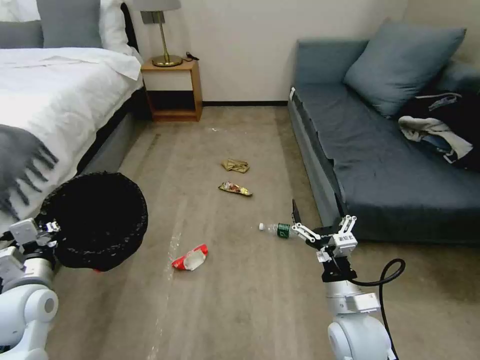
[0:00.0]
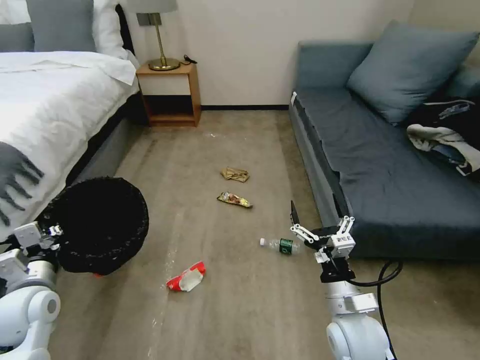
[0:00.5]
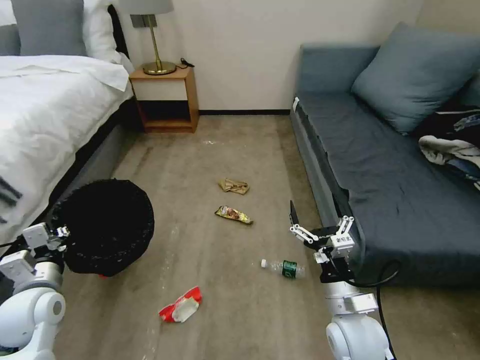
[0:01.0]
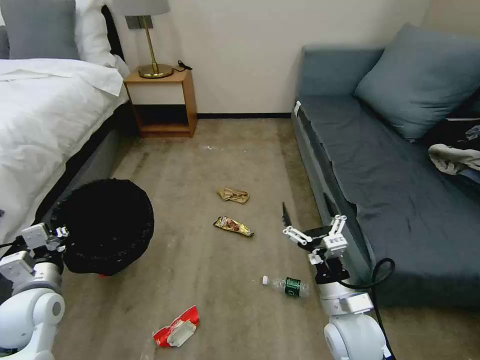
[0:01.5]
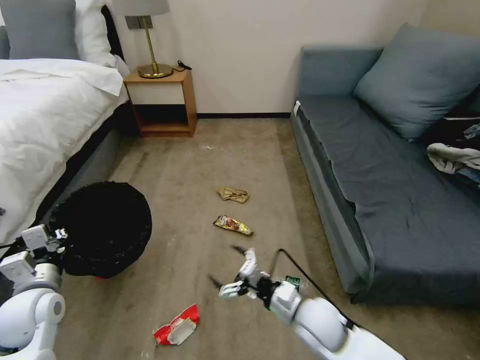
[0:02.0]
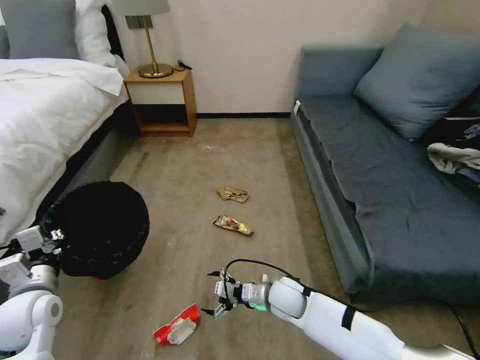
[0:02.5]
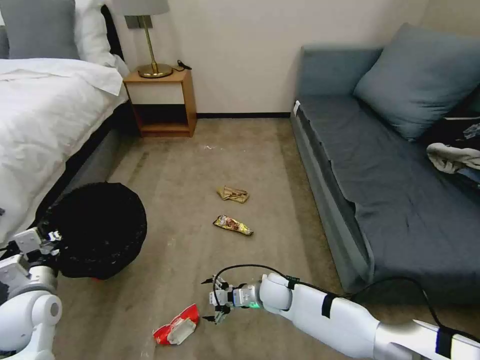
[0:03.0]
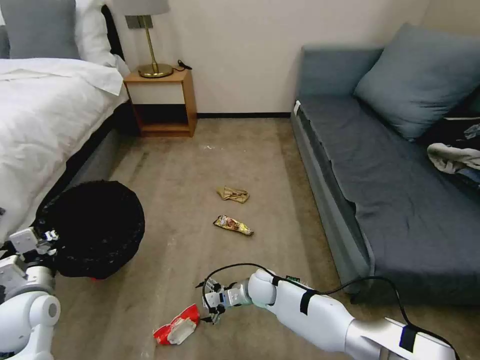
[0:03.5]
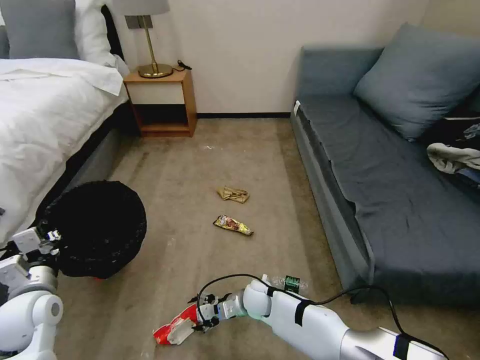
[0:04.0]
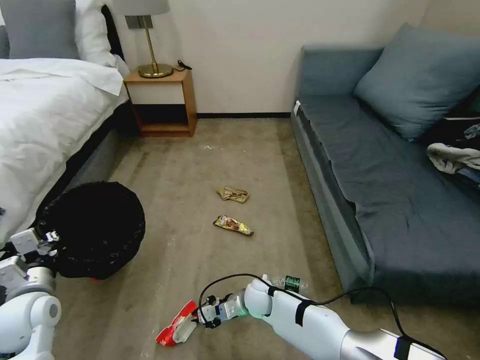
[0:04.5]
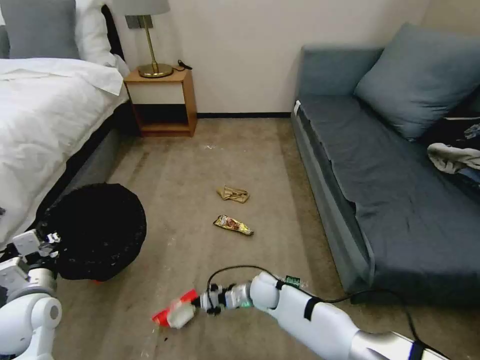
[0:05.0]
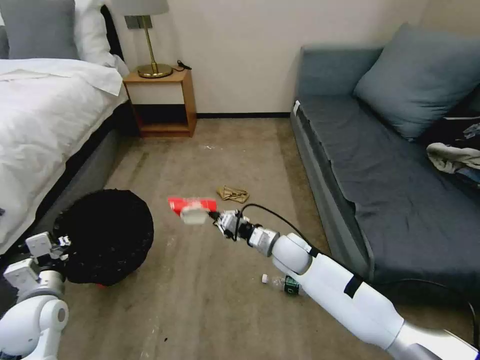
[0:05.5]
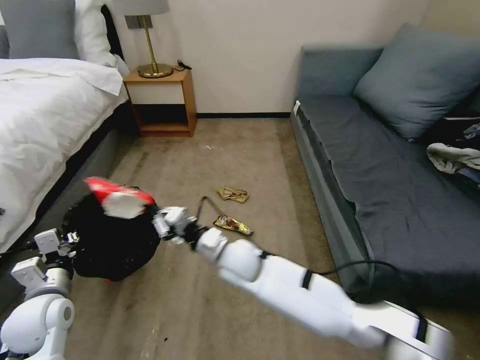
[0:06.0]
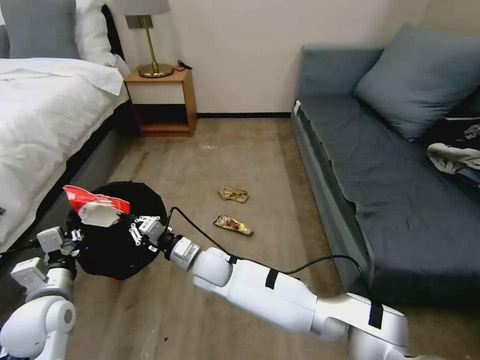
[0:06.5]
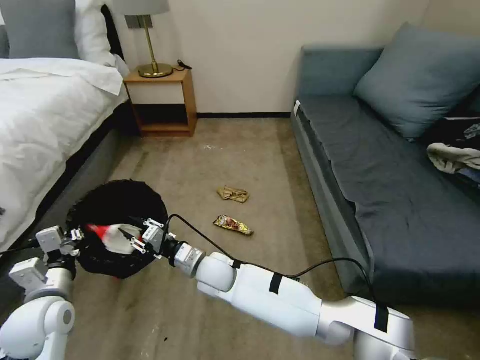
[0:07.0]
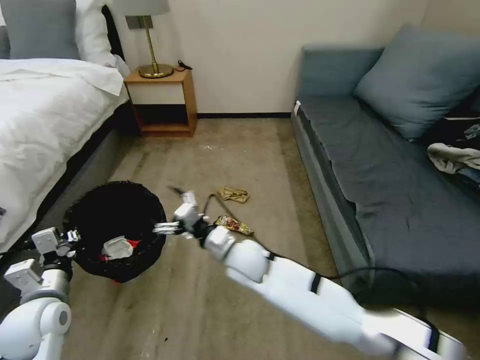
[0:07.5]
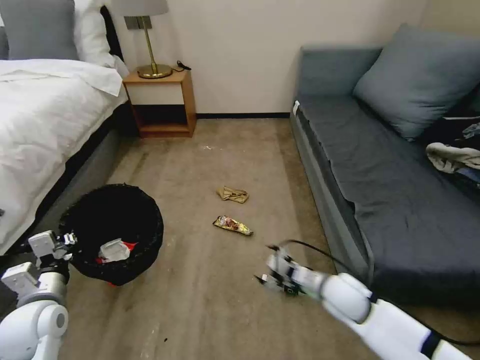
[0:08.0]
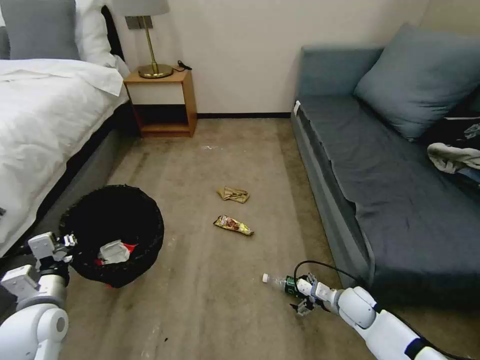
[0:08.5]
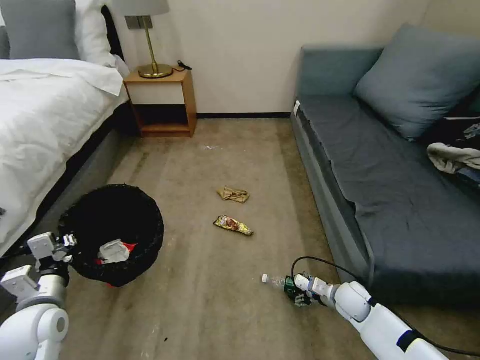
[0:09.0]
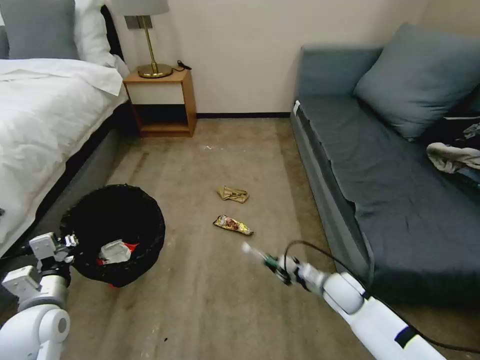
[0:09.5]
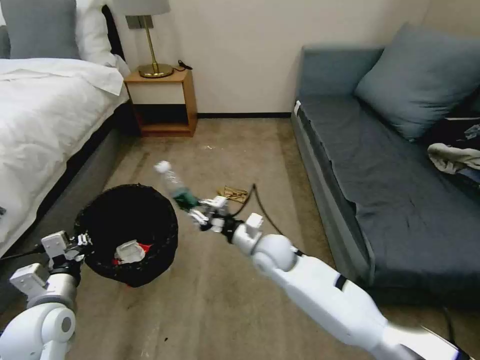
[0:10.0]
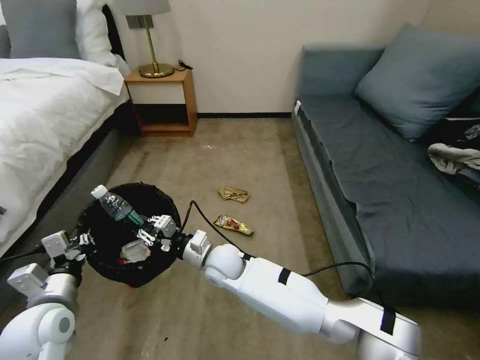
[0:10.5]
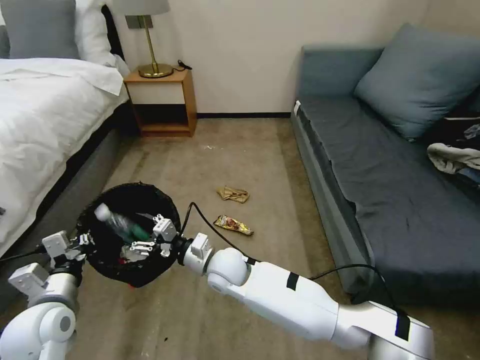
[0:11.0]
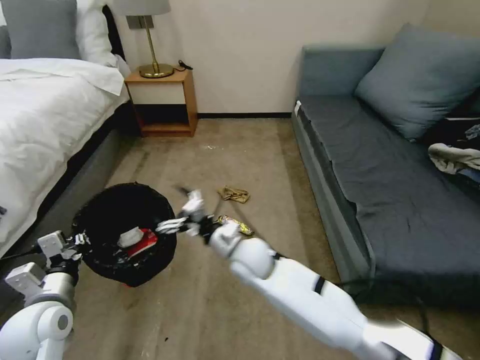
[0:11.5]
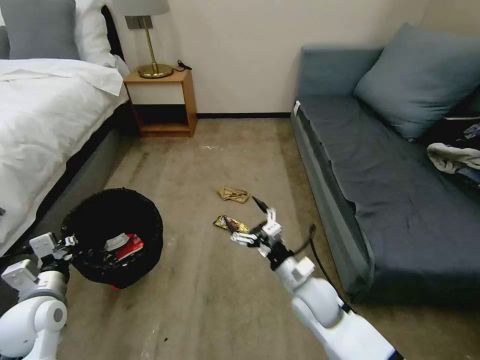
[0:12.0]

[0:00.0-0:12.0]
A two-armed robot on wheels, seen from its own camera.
Task of the whole recording: Pick up the trash bin, then pick up the garbage on the floor and place it into the trash bin.
0:00.0 to 0:02.0: The right gripper ends up about 5 cm from where it was.
0:02.0 to 0:04.0: The right gripper moves downward, to the left and forward, roughly 20 cm.
0:04.0 to 0:06.0: The right gripper heads upward, covering roughly 20 cm, and closes its fingers.
0:06.0 to 0:08.0: The right gripper moves to the right, approximately 25 cm, and opens up.
0:08.0 to 0:10.0: The right gripper moves to the left and forward, roughly 20 cm, and closes up.
0:10.0 to 0:12.0: The right gripper moves backward and to the right, about 15 cm, and opens up.

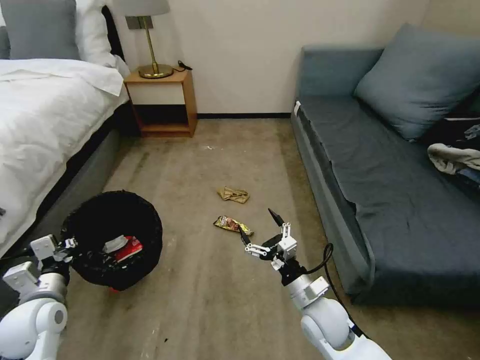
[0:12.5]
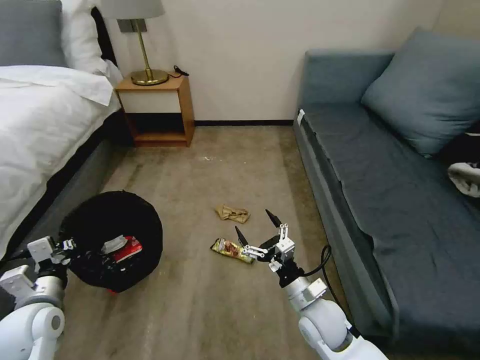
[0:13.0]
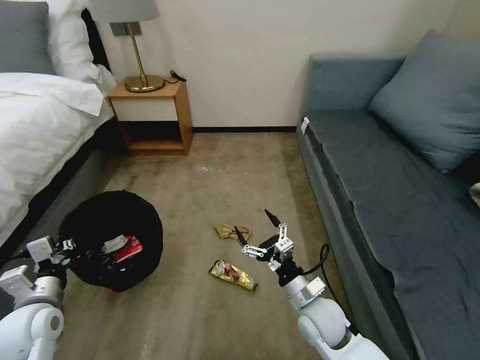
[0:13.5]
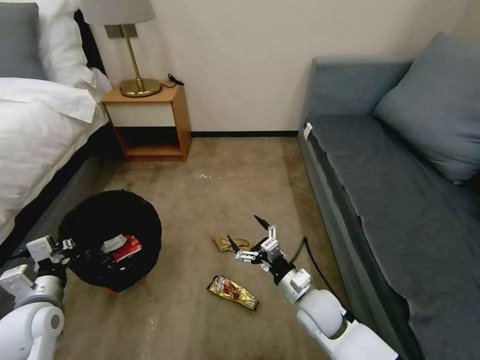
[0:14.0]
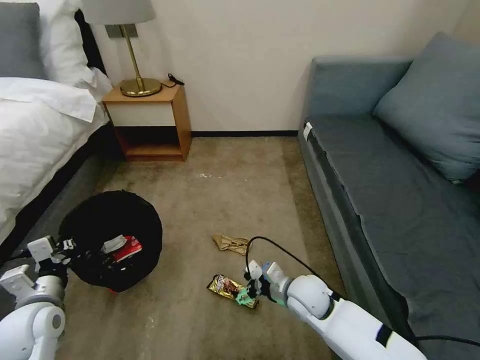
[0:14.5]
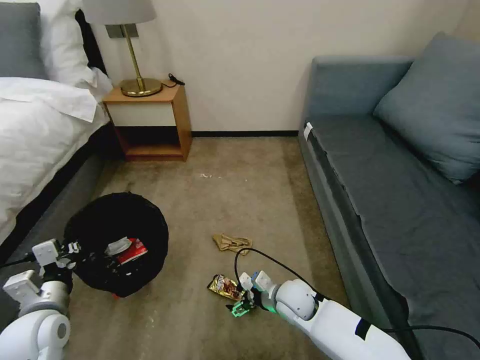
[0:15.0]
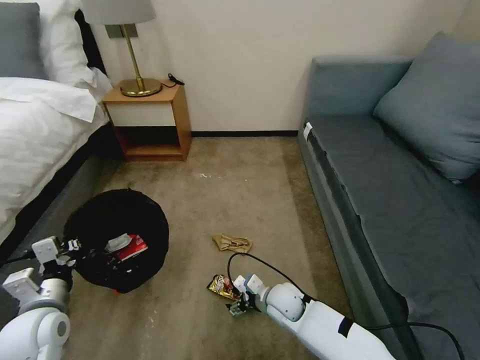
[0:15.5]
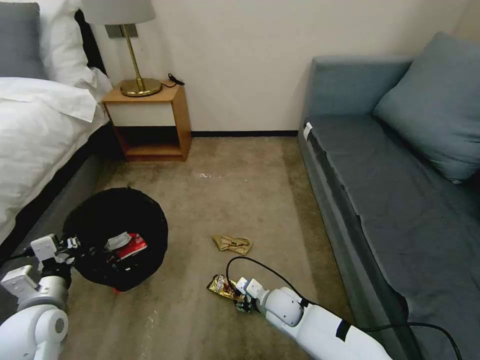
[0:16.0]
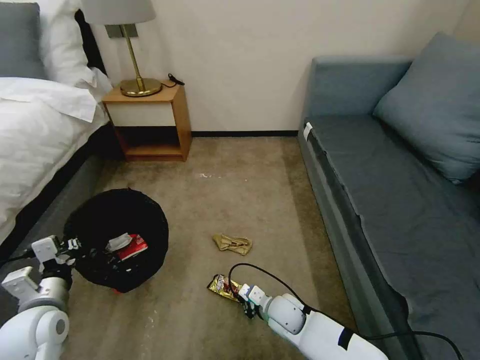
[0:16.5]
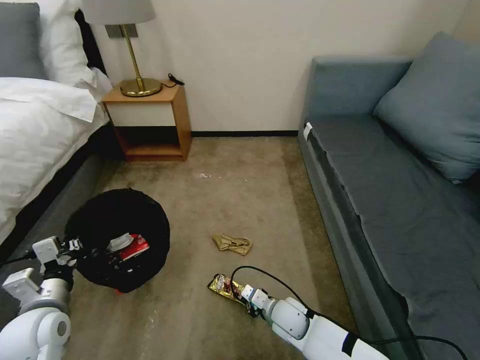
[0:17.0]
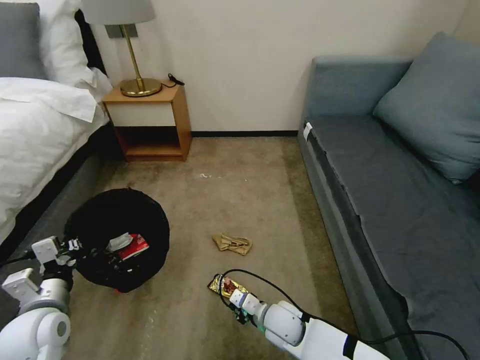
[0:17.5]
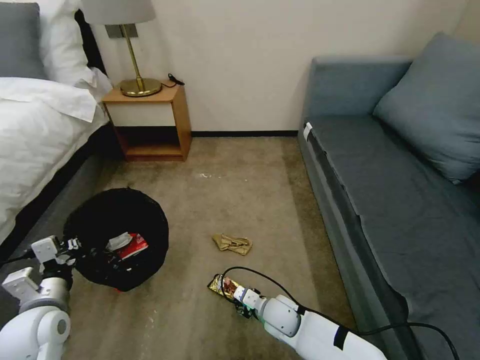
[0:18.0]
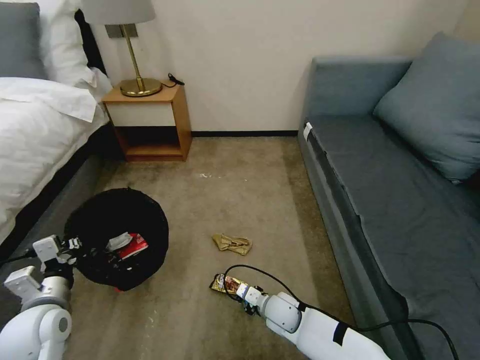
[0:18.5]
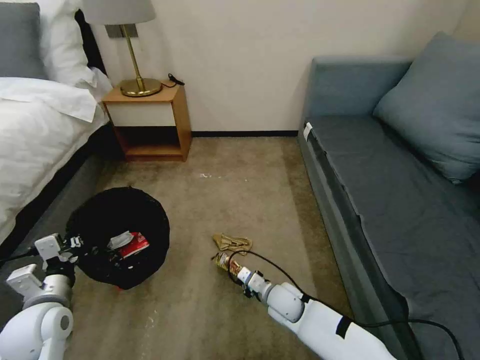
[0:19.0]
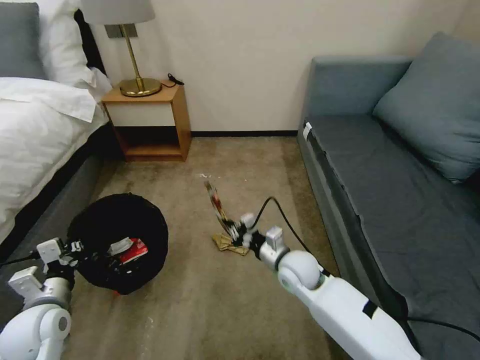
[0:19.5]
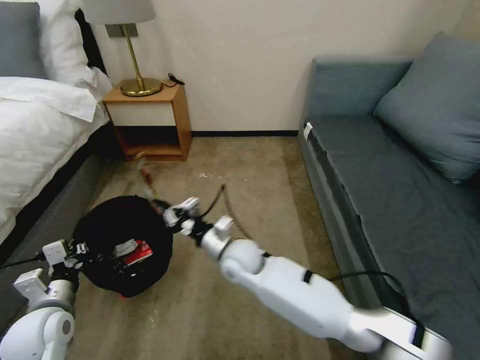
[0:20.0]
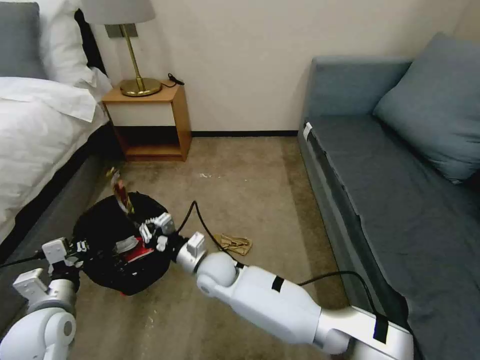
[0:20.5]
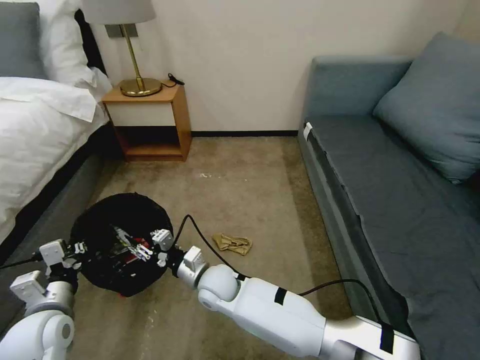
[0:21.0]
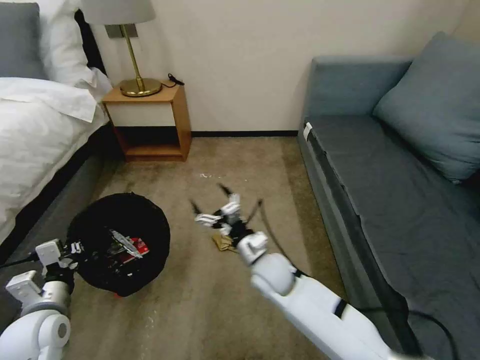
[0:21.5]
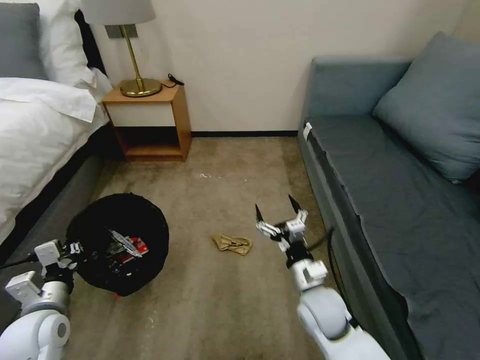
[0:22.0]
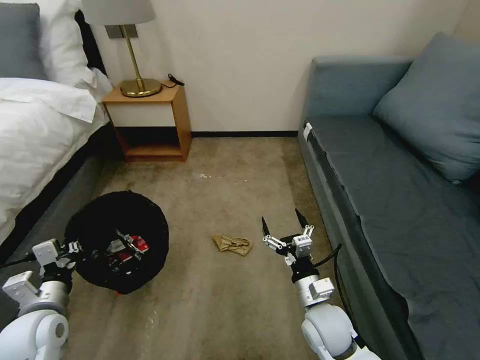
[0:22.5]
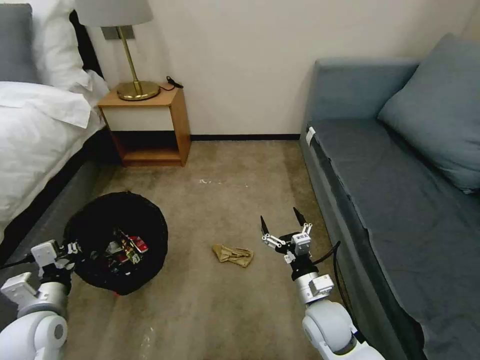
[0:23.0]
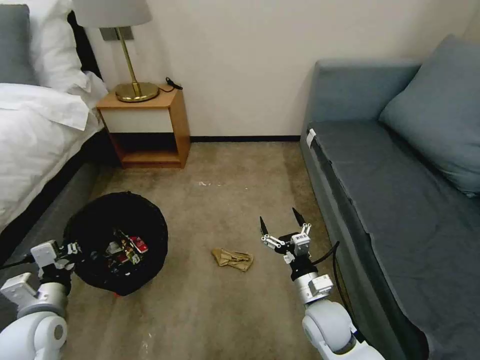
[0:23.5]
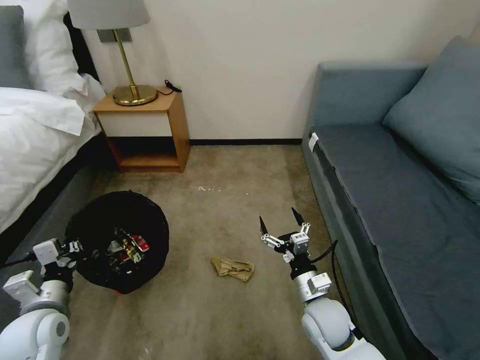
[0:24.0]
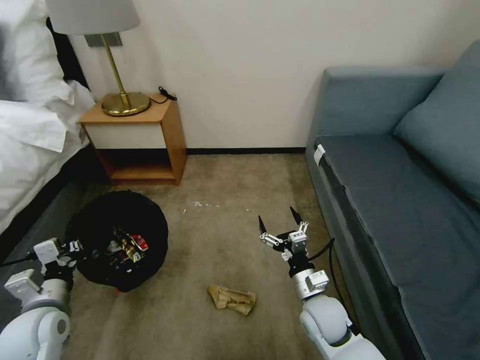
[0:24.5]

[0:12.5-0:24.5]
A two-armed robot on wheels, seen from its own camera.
Task of the whole recording: Pick up the trash bin, then pick up the garbage on the floor and place it into the trash bin.
0:12.5 to 0:14.5: The right gripper goes about 5 cm forward.
0:14.5 to 0:16.5: The right gripper travels downward by some 10 cm, and closes up.
0:16.5 to 0:18.5: The right gripper opens and closes again.
0:18.5 to 0:20.5: The right gripper goes about 20 cm to the left and upward.
0:20.5 to 0:22.5: The right gripper heads to the right and backward, covering some 25 cm, and opens its fingers.

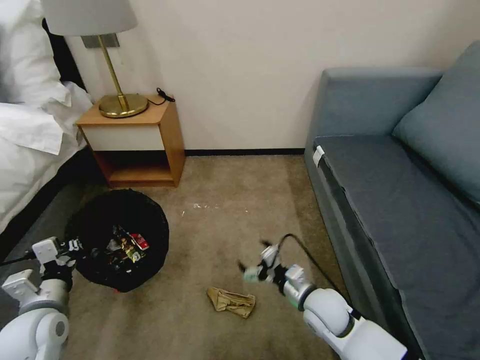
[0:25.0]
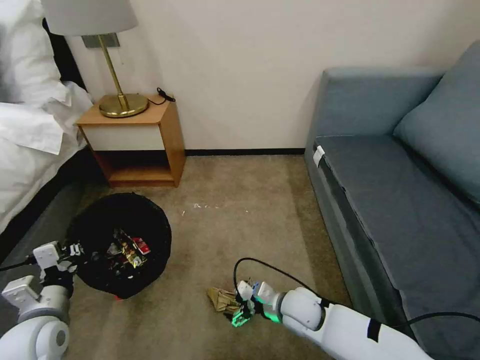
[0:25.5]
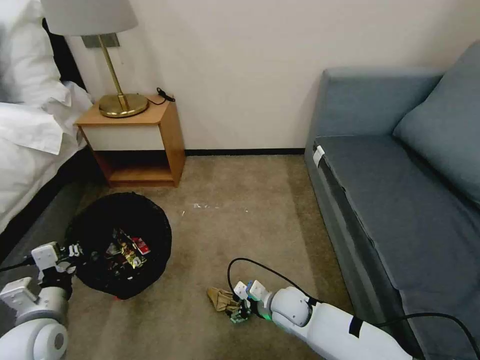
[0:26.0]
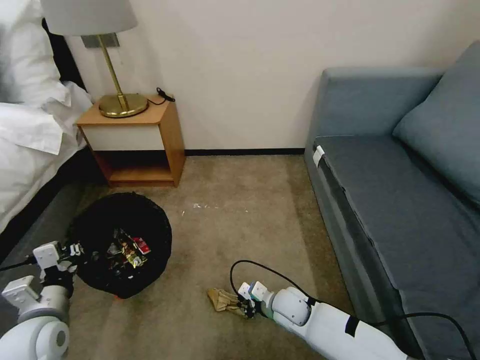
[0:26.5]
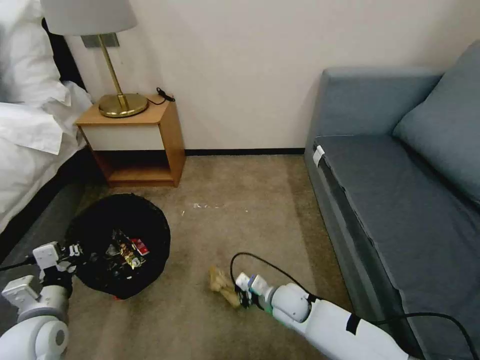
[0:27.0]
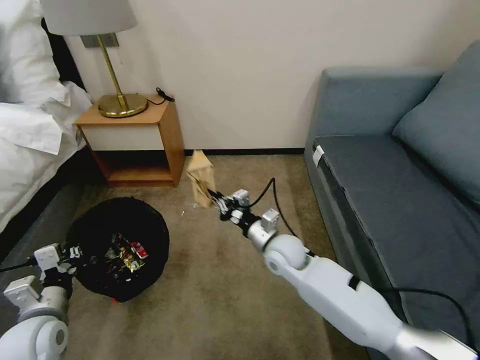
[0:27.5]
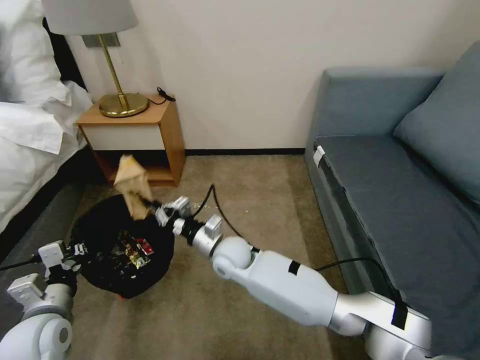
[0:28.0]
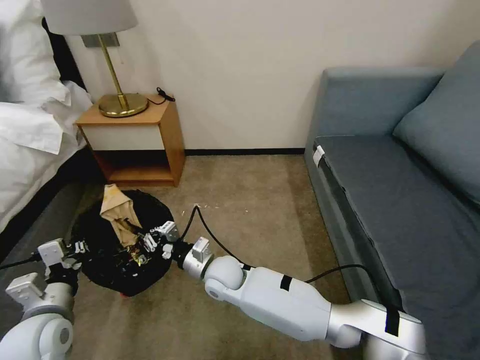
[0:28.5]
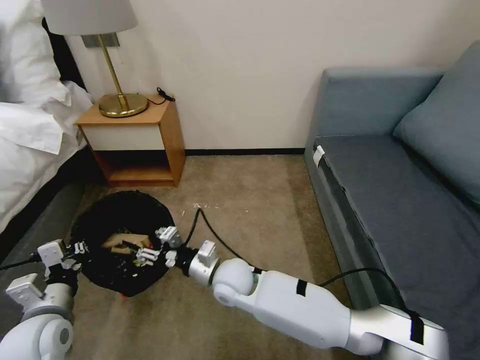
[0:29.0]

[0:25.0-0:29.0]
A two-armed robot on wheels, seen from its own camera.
Task of the whole recording: Pick up the trash bin, then pick up the garbage on the floor and place it into the trash bin.
0:25.0 to 0:27.0: The right gripper travels to the left and downward by approximately 10 cm, and closes its fingers.
0:27.0 to 0:29.0: The right gripper heads to the left and upward, covering some 20 cm, and opens its fingers.
